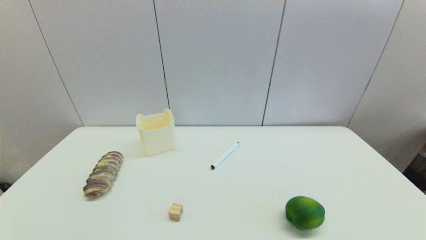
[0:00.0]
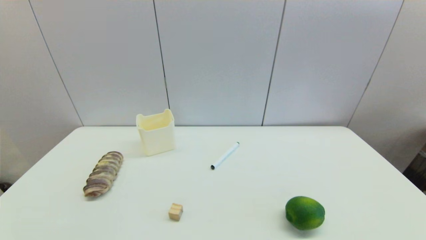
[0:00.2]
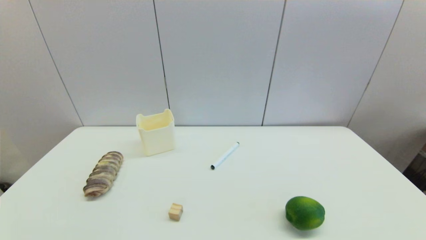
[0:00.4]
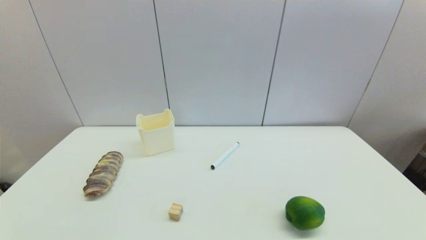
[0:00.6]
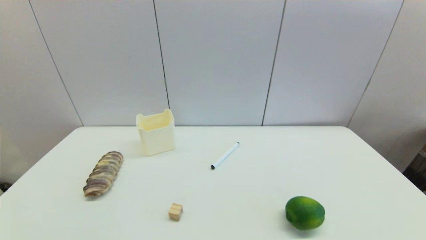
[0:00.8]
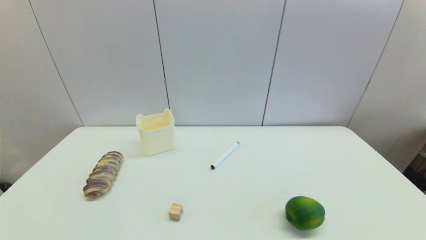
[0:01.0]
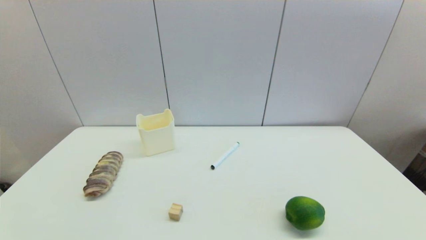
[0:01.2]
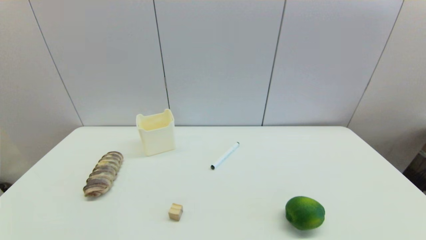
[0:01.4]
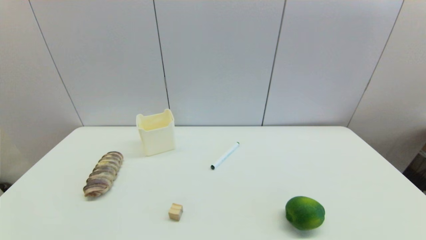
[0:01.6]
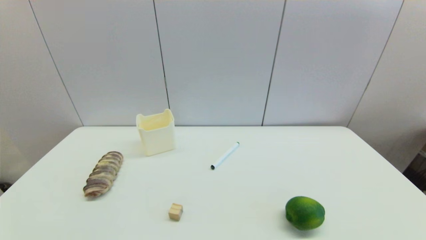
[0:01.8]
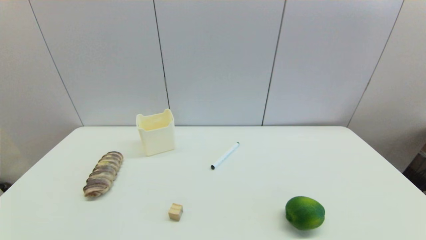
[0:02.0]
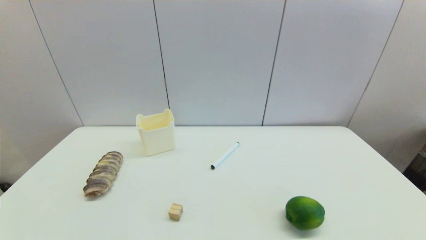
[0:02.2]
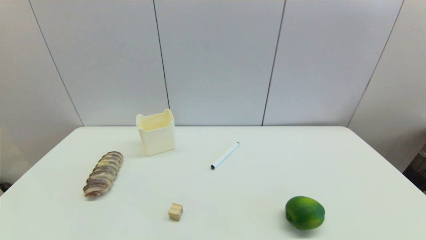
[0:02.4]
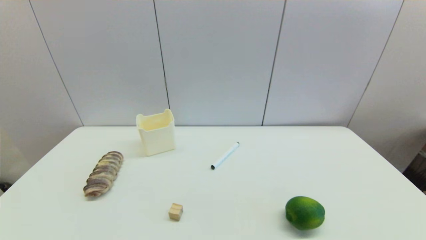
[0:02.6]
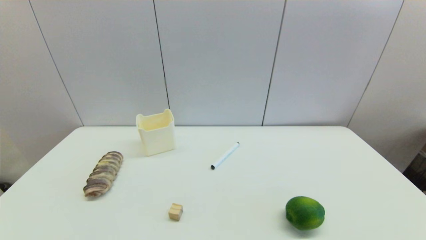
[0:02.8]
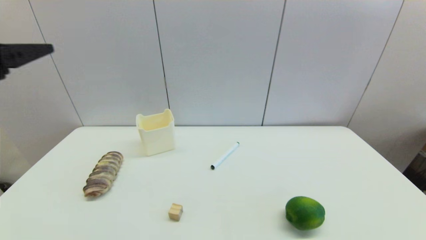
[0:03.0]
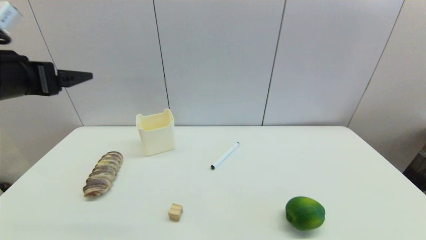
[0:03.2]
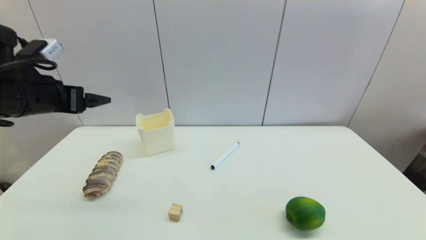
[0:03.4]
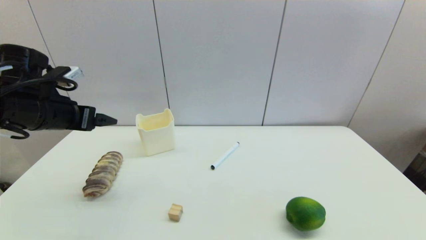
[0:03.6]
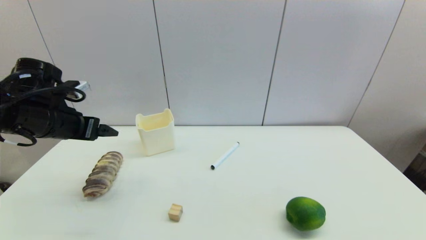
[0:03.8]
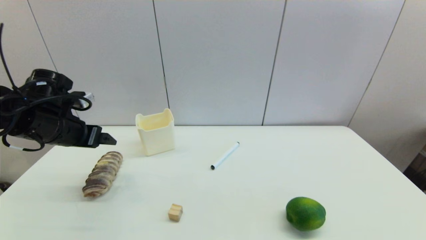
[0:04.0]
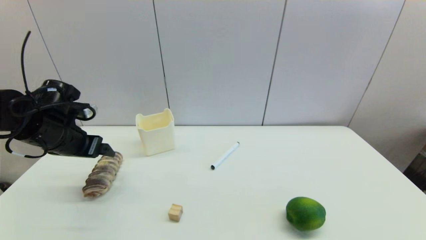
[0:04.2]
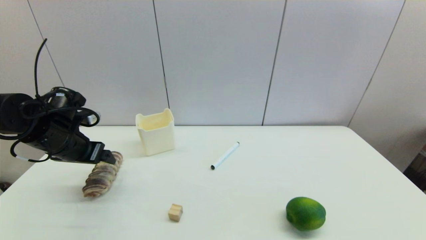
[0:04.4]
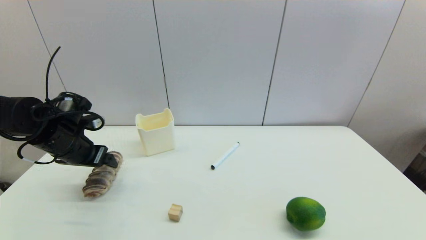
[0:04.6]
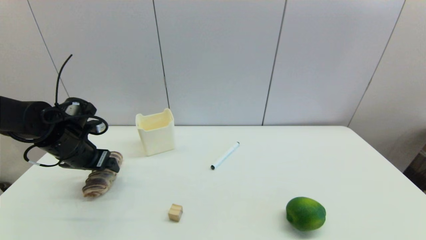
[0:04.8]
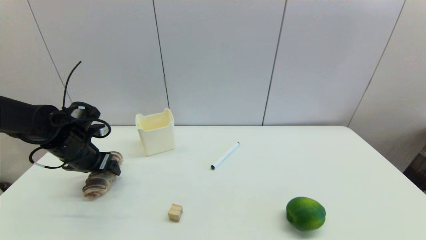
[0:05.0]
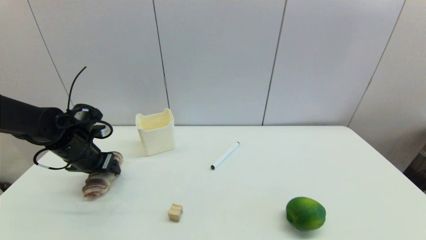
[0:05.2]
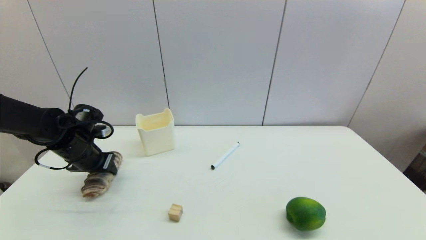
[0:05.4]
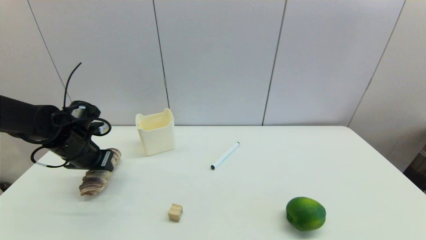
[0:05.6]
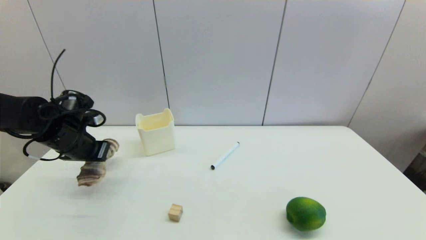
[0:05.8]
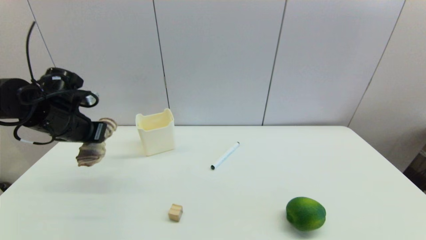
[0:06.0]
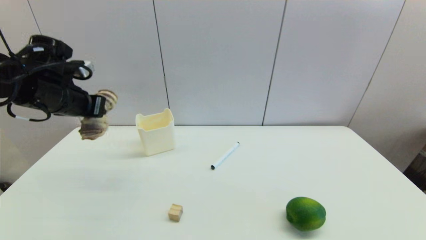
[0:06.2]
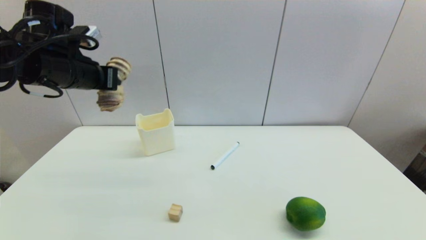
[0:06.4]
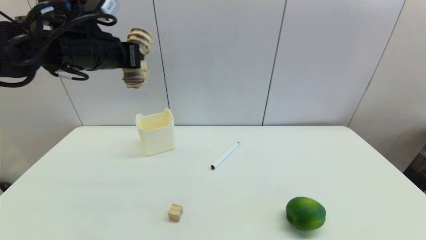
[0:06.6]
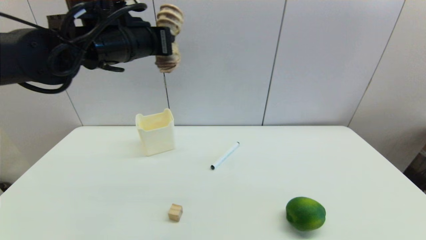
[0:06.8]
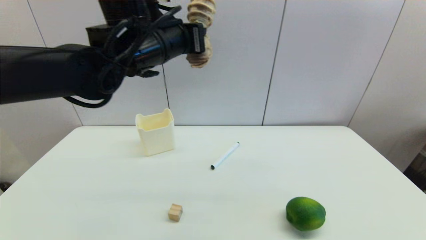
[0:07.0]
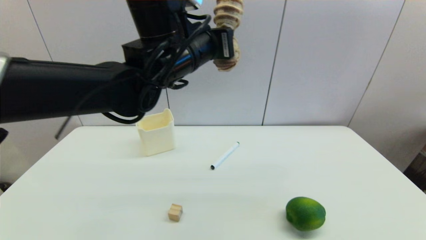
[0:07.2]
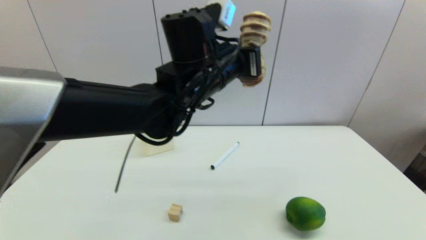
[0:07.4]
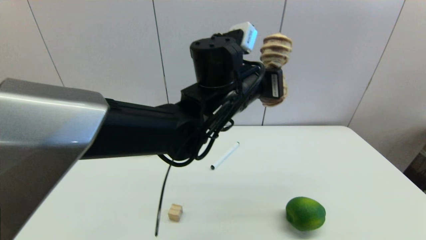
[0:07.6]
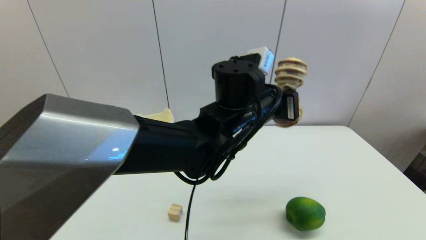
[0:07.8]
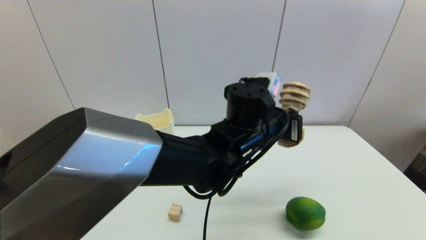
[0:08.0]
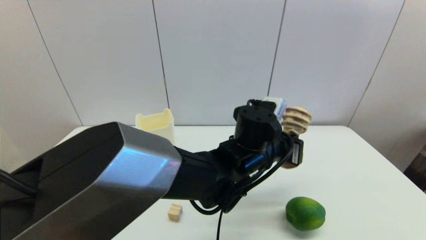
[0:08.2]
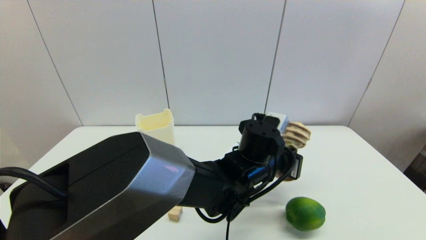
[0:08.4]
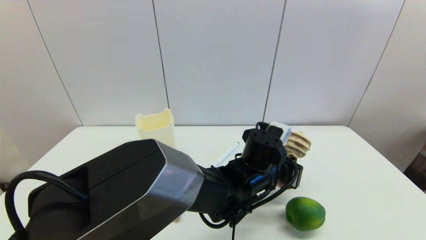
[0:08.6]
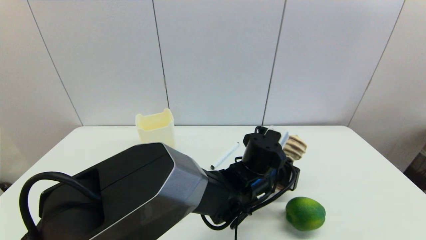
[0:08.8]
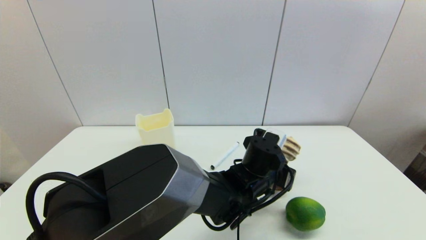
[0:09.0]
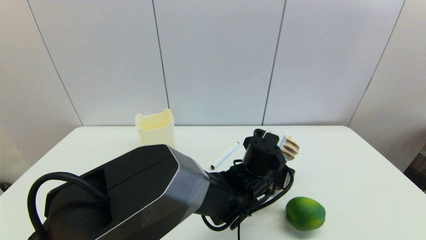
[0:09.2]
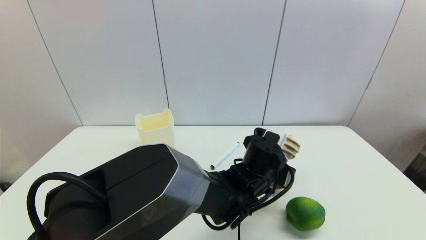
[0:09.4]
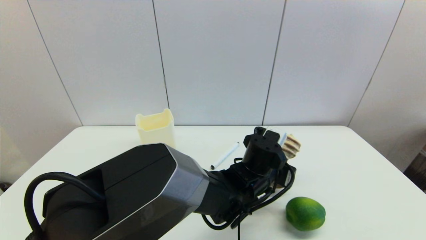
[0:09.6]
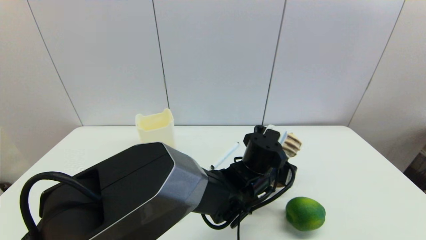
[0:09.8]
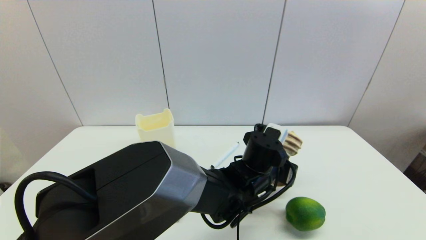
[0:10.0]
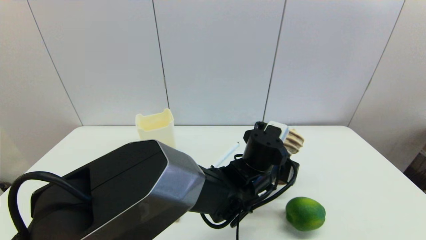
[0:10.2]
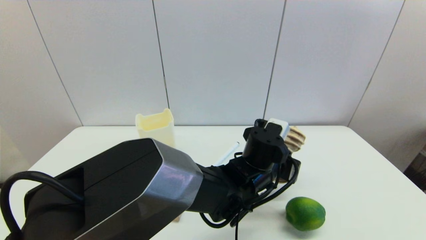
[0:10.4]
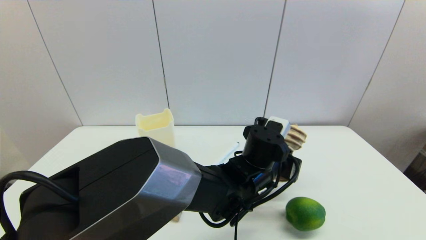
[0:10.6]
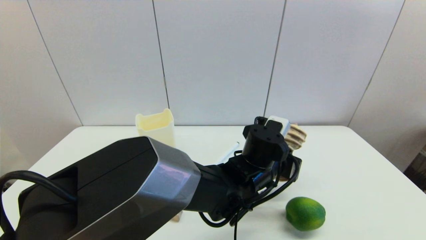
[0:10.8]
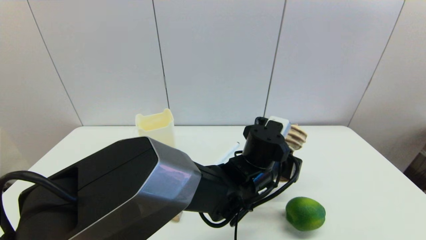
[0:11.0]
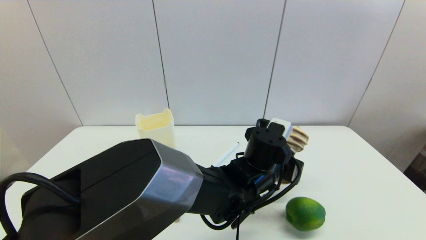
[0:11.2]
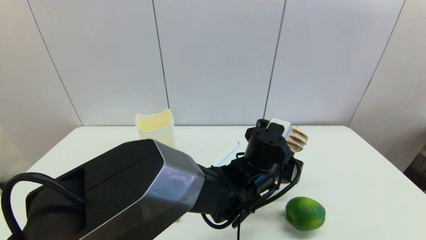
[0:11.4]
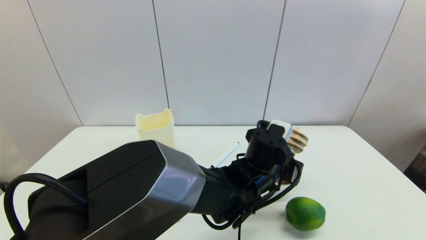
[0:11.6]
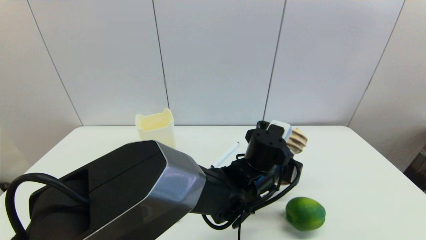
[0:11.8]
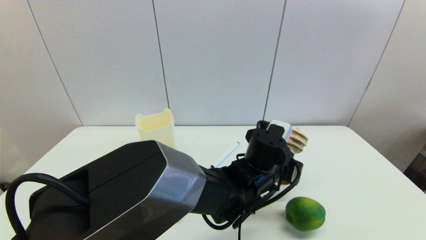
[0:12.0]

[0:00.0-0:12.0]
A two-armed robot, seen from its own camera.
Step, 0:03.0 to 0:05.6: Grasp the long bread with left gripper.
0:00.0 to 0:01.6: Neither gripper changes place.
0:01.6 to 0:03.0: The left gripper travels upward and forward by approximately 35 cm.
0:03.0 to 0:04.4: The left gripper heads downward and forward, covering roughly 20 cm.
0:04.4 to 0:06.0: The left gripper closes its fingers.
0:06.0 to 0:07.6: The left gripper moves to the right, some 35 cm.
0:07.6 to 0:09.0: The left gripper heads downward, covering some 15 cm.
0:09.0 to 0:10.4: There are only small adjustments of the grippers.
0:10.4 to 0:12.0: The two grippers keep their place.

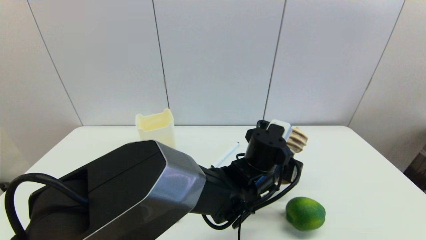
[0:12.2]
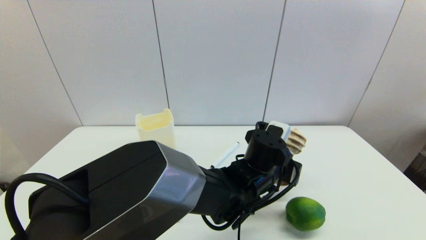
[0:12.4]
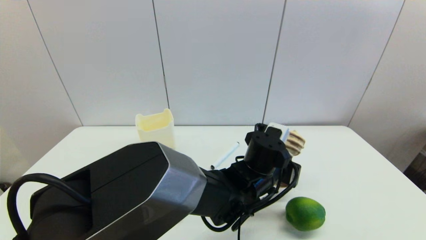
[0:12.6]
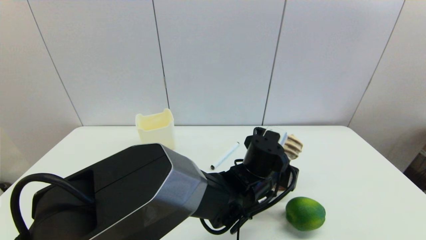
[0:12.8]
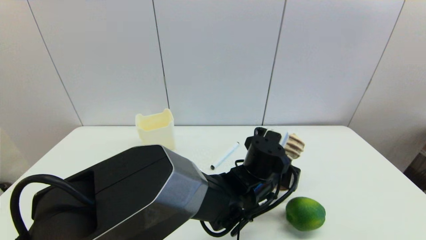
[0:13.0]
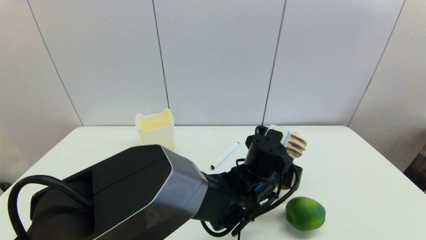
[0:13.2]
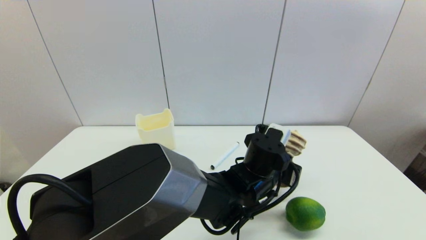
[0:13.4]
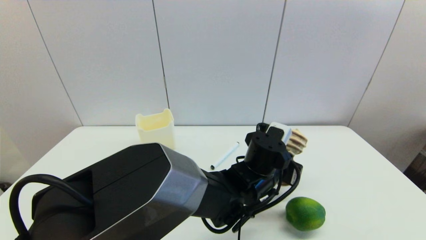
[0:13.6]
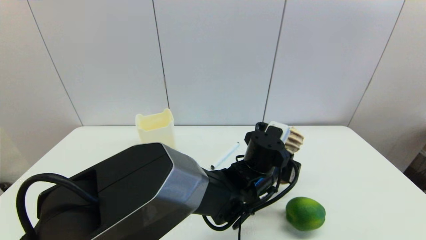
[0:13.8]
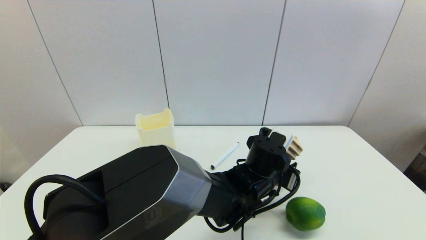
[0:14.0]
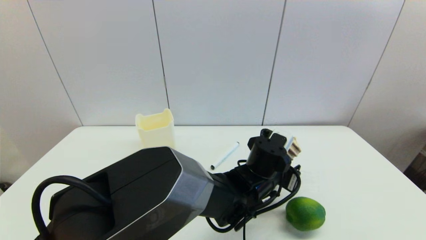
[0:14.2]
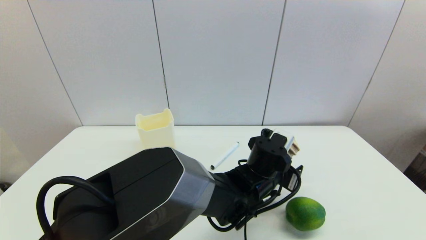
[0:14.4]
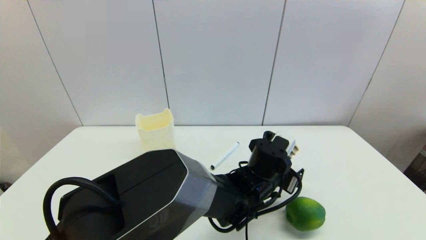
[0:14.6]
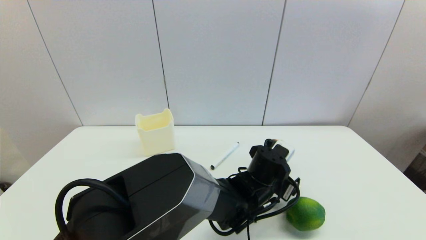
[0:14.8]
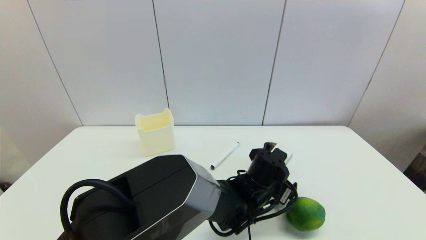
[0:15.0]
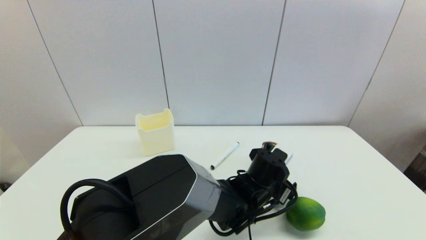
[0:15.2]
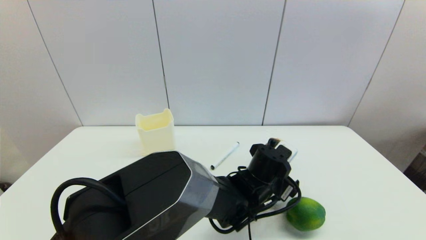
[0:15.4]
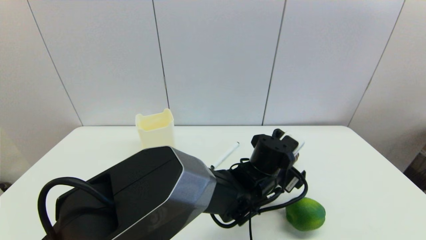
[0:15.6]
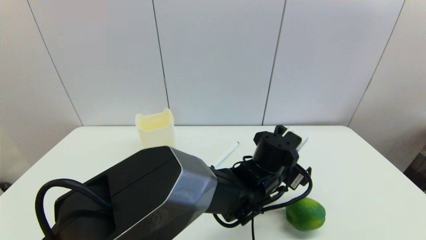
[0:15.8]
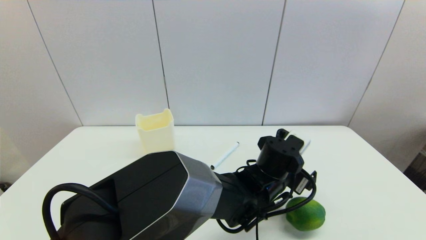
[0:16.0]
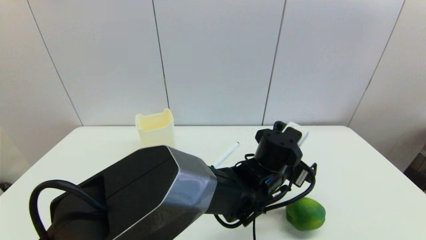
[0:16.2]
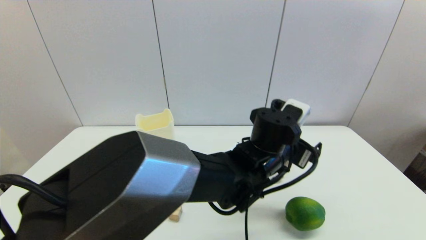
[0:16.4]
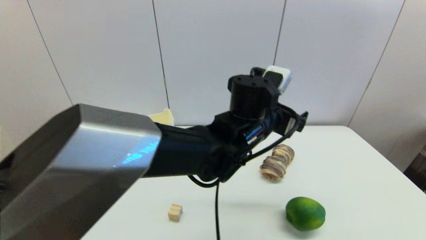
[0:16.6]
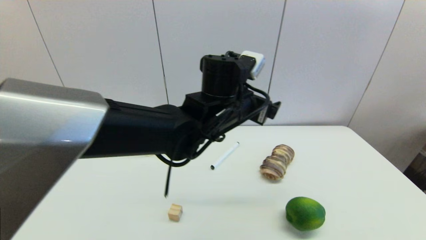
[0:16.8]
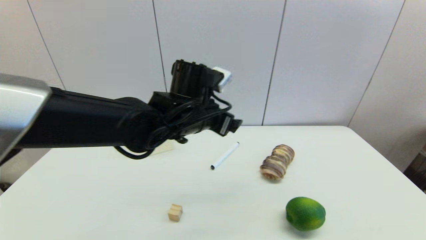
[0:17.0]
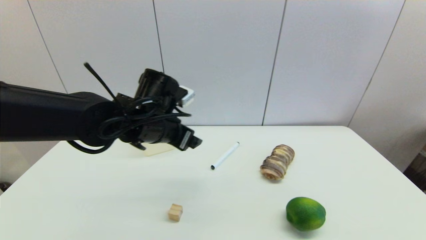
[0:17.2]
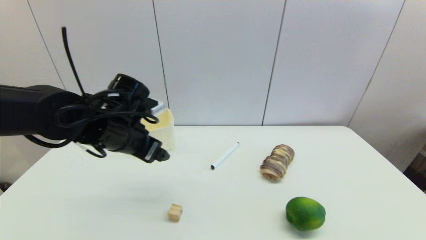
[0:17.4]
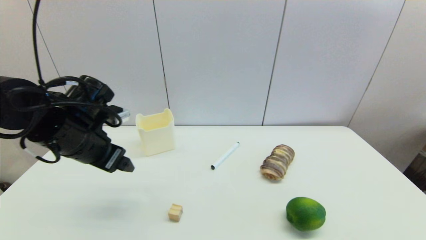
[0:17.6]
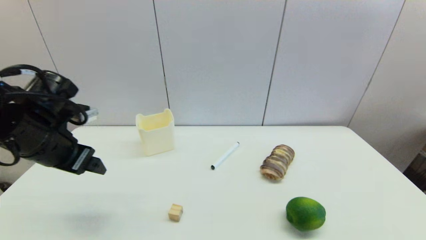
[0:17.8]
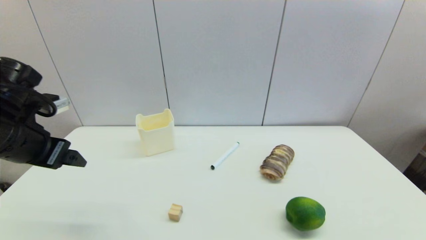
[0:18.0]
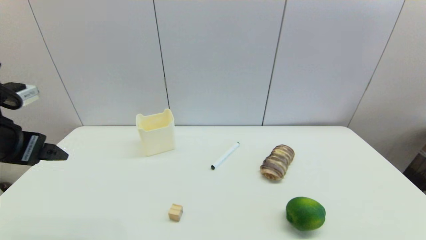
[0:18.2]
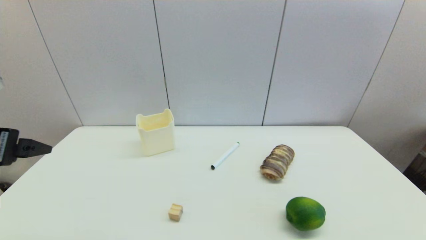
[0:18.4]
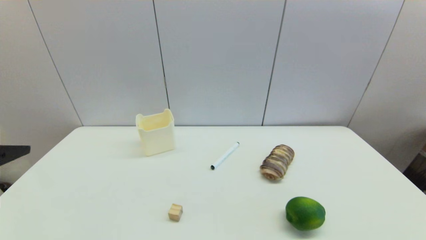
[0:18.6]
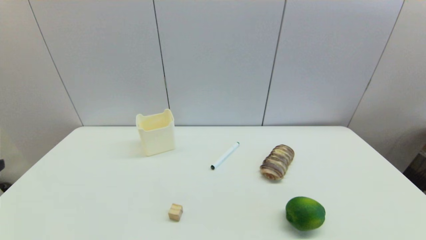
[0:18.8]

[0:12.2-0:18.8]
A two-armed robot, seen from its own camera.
Step, 0:12.2 to 0:15.6: Place the long bread on the table with left gripper.
0:12.2 to 0:13.8: Neither gripper changes place.
0:13.8 to 0:15.4: The left gripper opens its fingers.
0:15.4 to 0:17.2: The left gripper travels to the left and upward by approximately 25 cm.
0:17.2 to 0:18.8: The left gripper moves backward and to the left, approximately 30 cm.
